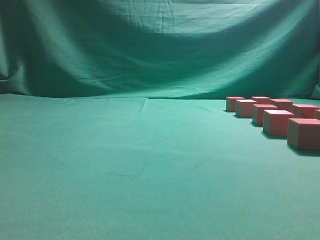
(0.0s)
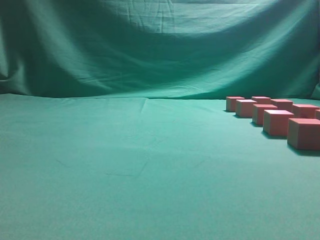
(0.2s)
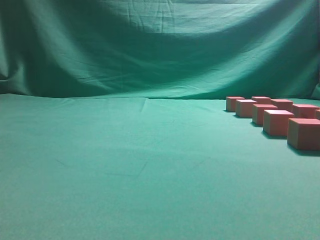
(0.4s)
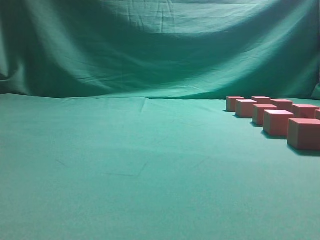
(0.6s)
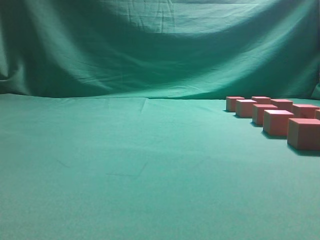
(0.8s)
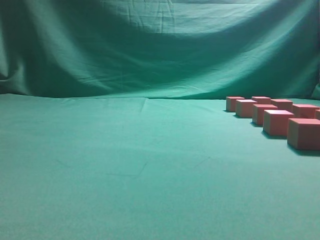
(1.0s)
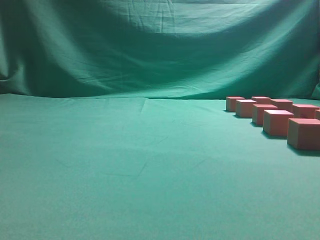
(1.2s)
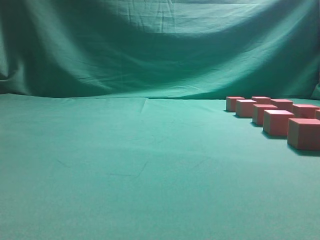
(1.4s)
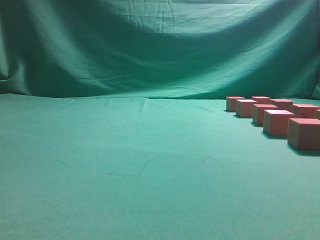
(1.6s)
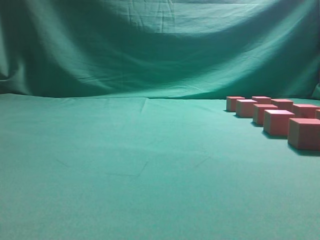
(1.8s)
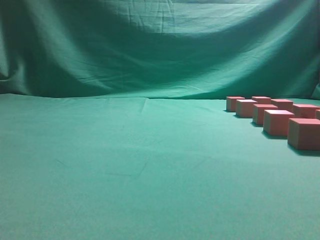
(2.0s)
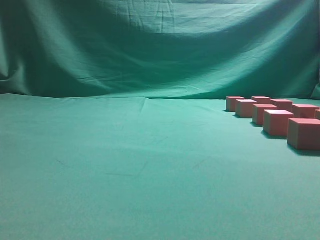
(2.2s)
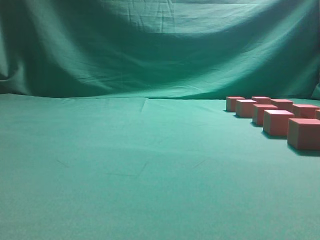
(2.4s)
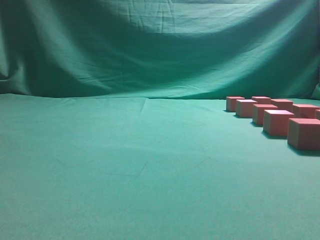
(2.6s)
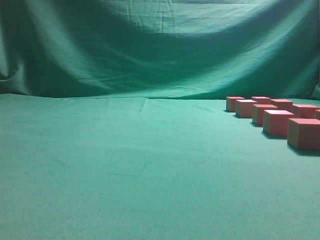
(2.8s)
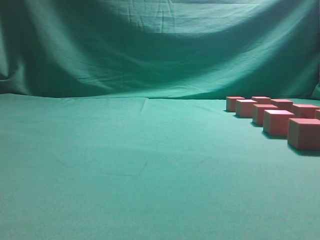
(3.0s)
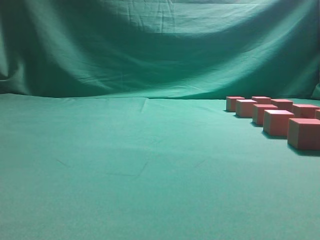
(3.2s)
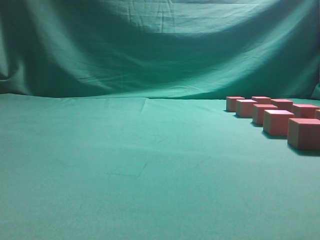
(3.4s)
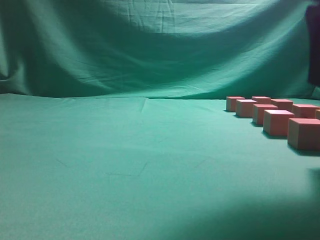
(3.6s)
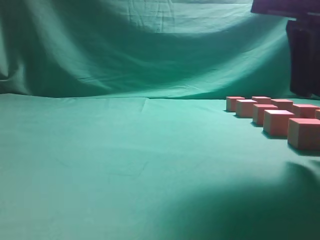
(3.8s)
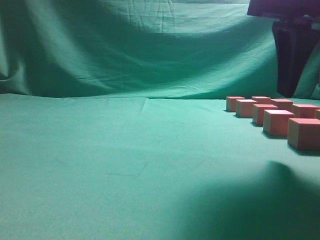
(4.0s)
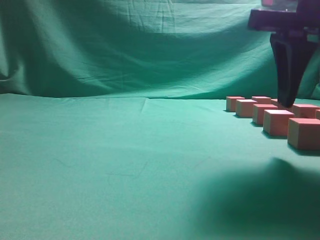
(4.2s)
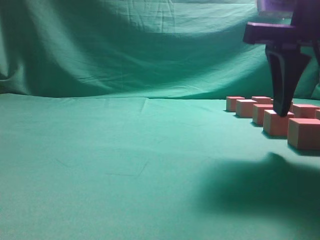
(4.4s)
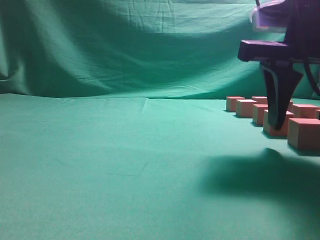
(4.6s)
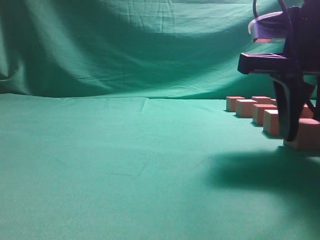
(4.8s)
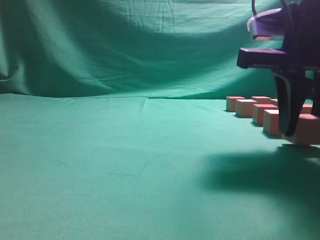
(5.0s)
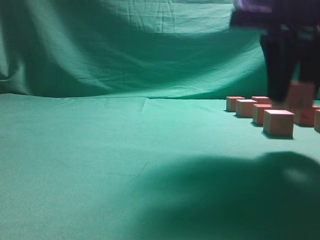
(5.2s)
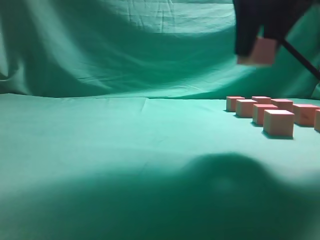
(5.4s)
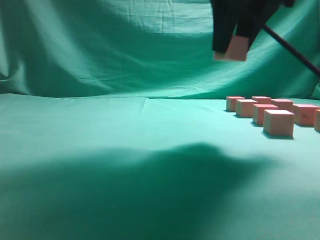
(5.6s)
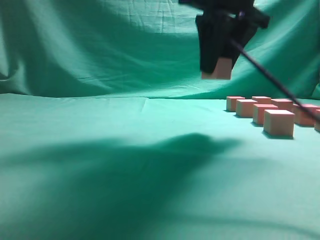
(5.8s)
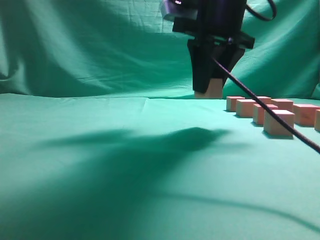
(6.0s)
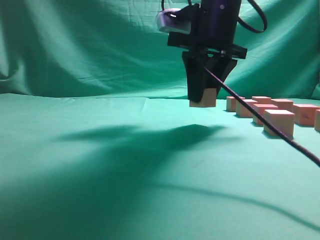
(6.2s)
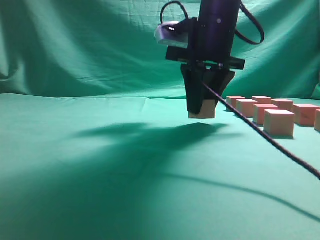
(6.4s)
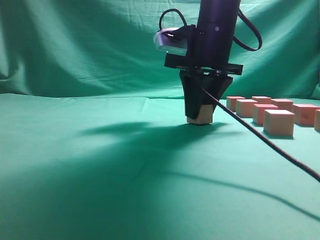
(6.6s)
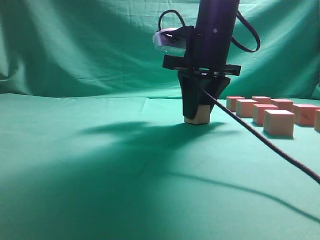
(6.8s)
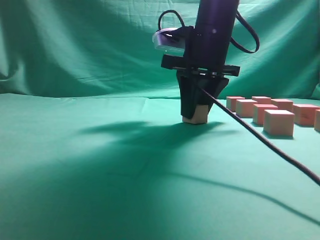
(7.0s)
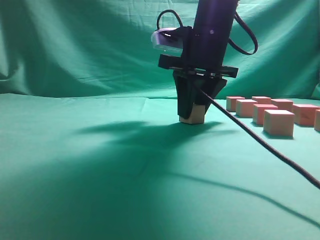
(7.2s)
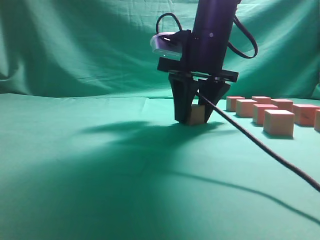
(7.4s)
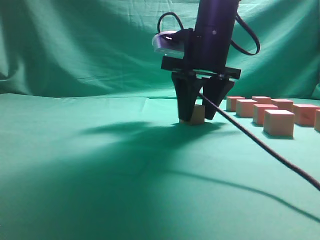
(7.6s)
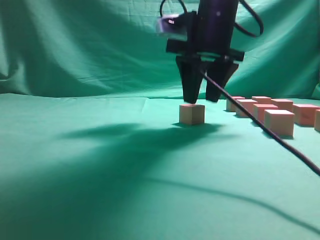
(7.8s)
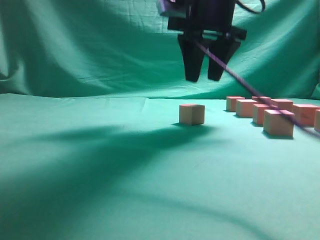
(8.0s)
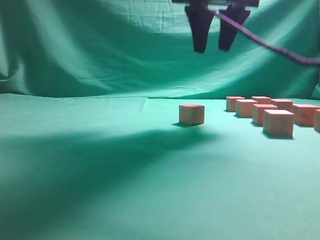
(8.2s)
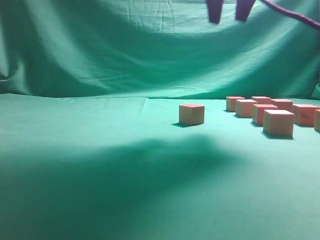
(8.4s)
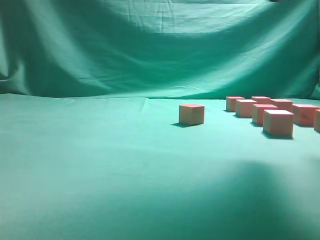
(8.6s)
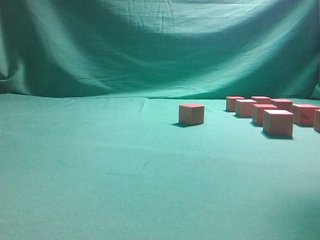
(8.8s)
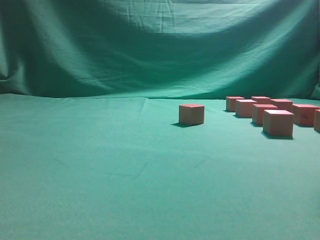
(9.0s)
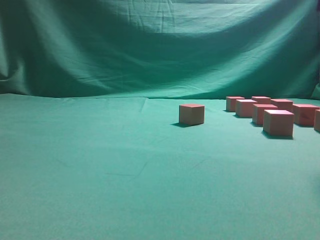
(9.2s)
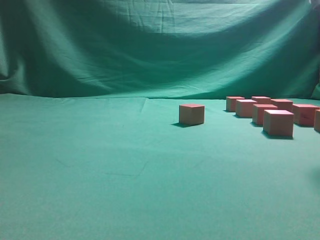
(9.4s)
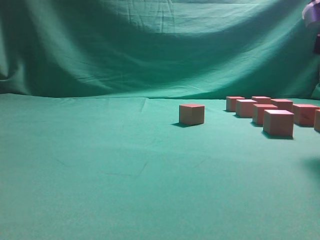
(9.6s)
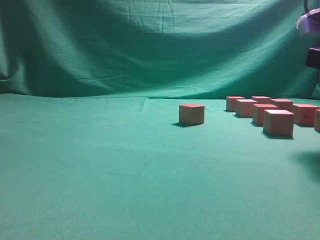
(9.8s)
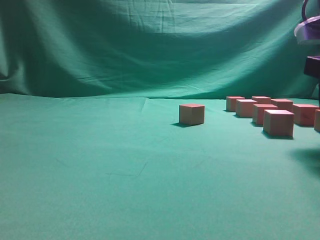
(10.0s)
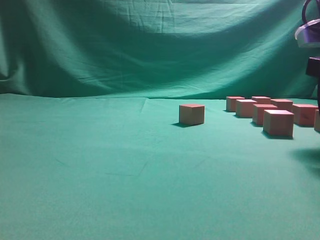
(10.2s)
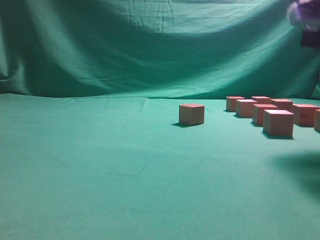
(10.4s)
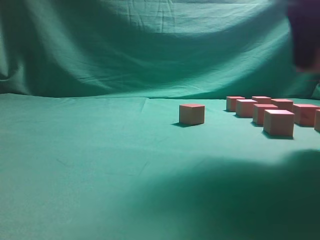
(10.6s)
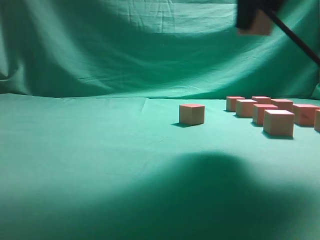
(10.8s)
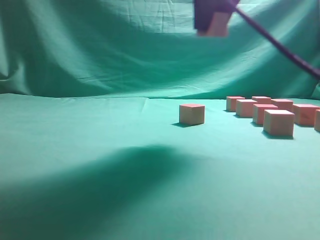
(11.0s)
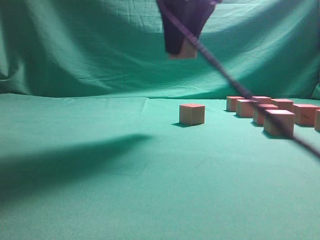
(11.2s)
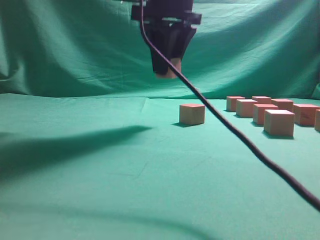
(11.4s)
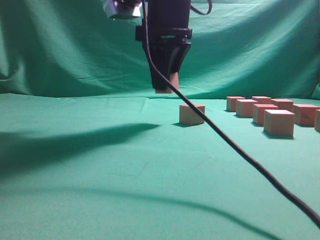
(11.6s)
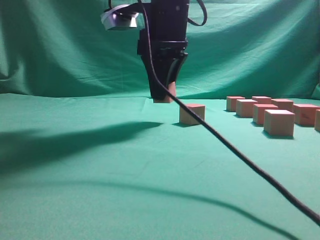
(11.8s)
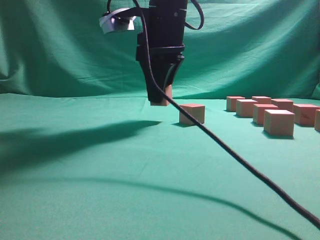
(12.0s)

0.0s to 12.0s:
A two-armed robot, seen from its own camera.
Task of the whole recording: pick up the multiple cubes in two columns one by one and place them in another position on the table.
Step, 0.0s to 5.4s: Pick up the block on the table.
Step, 5.6s to 8.0s: Place the block at the correct position to assemble the letter S.
Step, 8.4s to 10.4s: Pick up the block on the table.
3.0s to 4.4s: The right gripper shifts some 15 cm forward, to the left and downward, and opens up.
4.4s to 6.0s: The right gripper moves forward and to the left, approximately 15 cm.
6.0s to 7.6s: The right gripper goes roughly 5 cm downward.
7.6s to 9.0s: The right gripper moves to the right, backward and upward, about 25 cm.
9.0s to 10.4s: The right gripper shifts approximately 5 cm downward.
10.4s to 12.0s: The right gripper is displaced to the left and forward by approximately 25 cm.

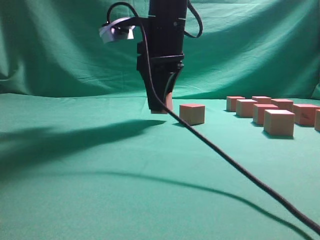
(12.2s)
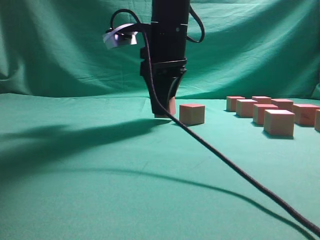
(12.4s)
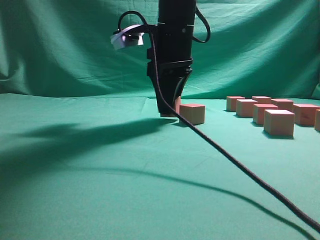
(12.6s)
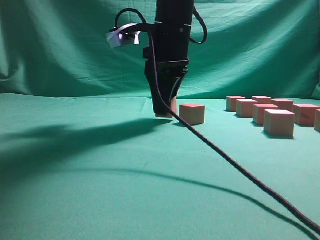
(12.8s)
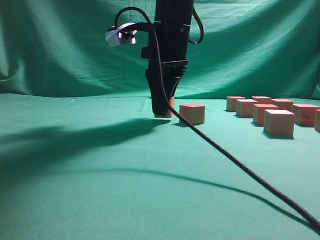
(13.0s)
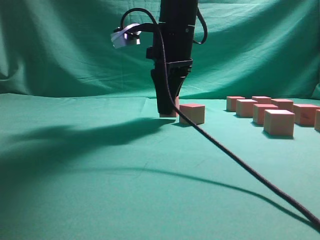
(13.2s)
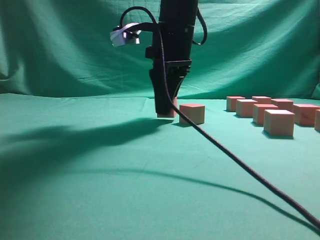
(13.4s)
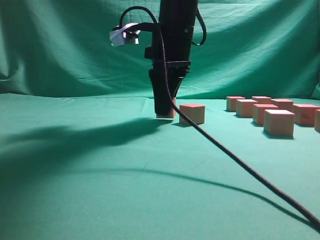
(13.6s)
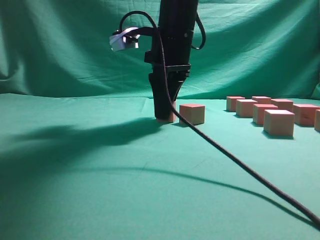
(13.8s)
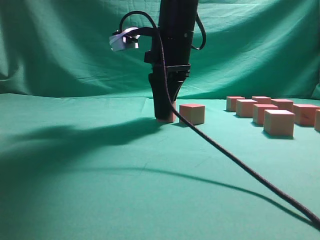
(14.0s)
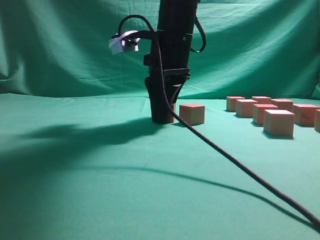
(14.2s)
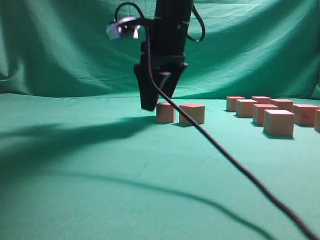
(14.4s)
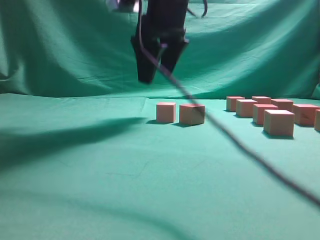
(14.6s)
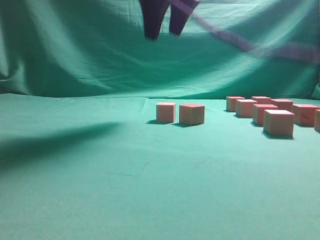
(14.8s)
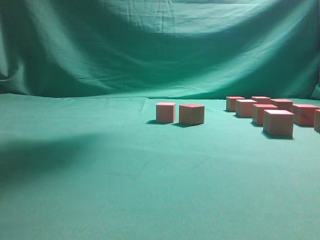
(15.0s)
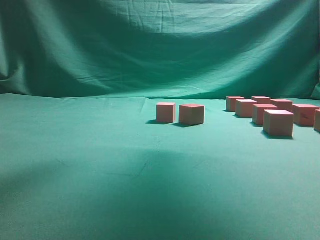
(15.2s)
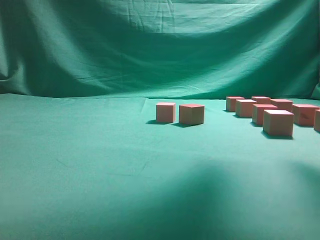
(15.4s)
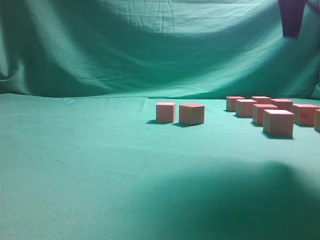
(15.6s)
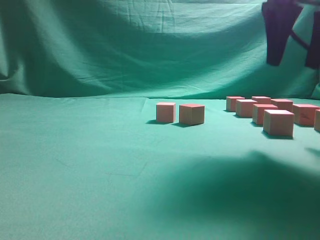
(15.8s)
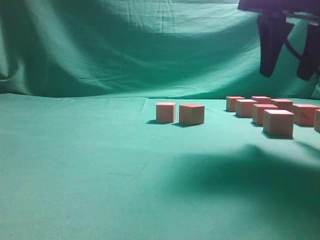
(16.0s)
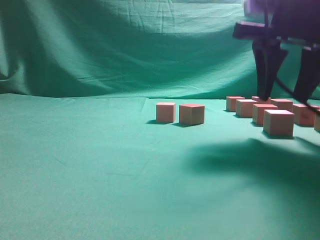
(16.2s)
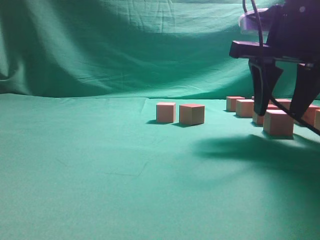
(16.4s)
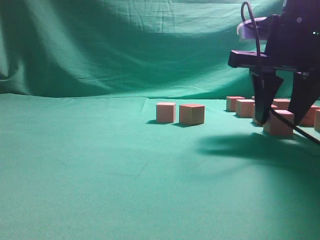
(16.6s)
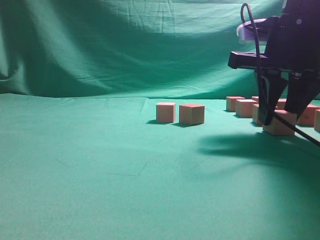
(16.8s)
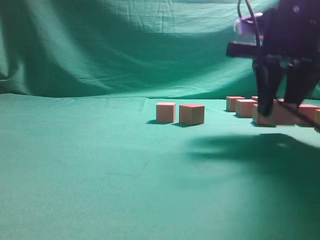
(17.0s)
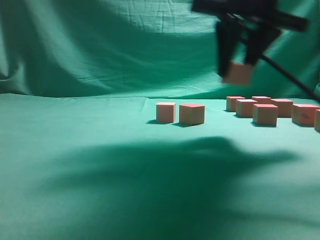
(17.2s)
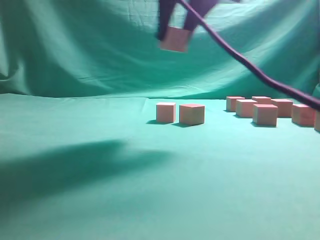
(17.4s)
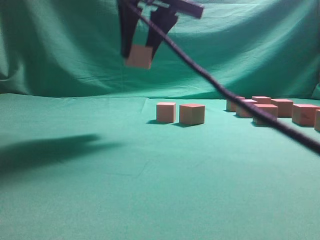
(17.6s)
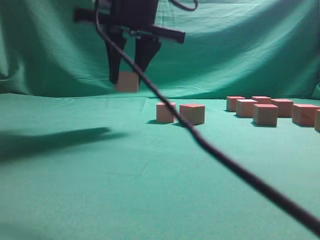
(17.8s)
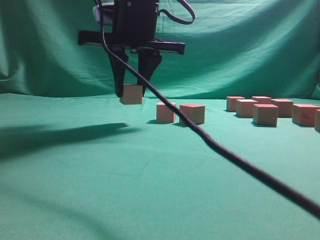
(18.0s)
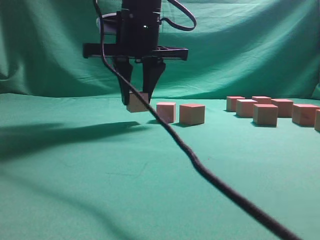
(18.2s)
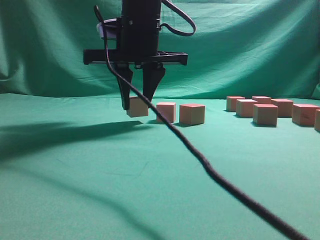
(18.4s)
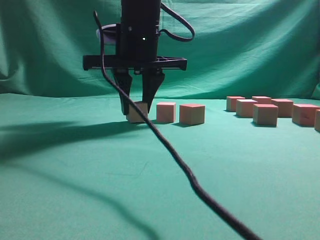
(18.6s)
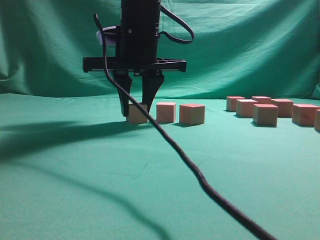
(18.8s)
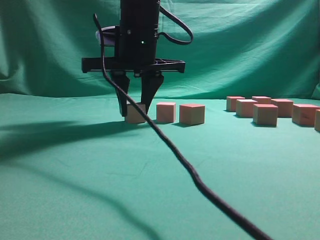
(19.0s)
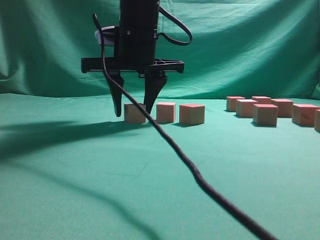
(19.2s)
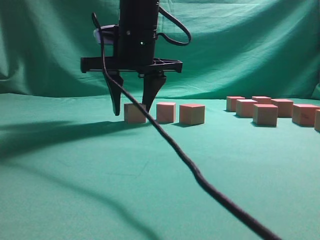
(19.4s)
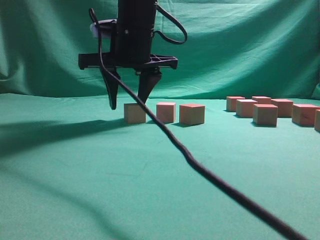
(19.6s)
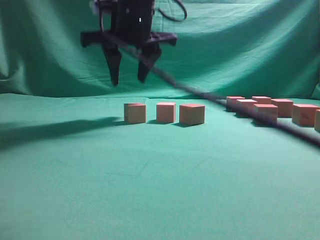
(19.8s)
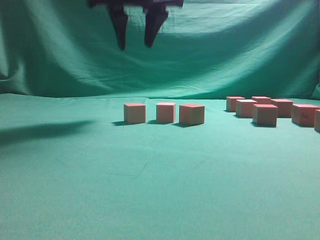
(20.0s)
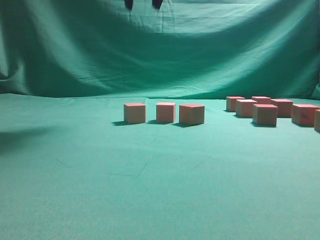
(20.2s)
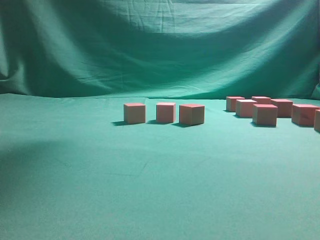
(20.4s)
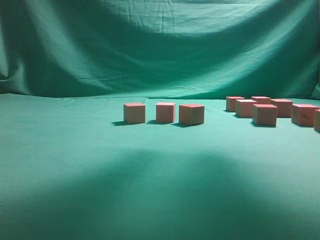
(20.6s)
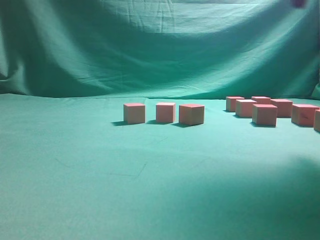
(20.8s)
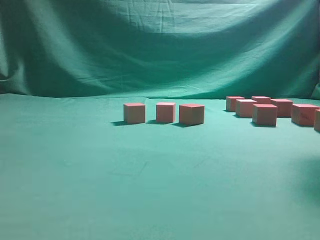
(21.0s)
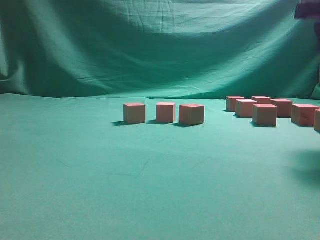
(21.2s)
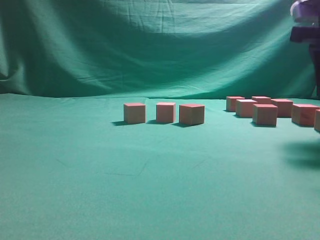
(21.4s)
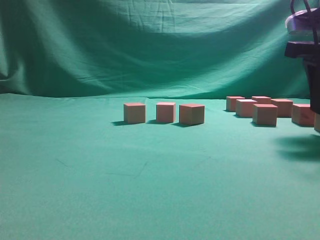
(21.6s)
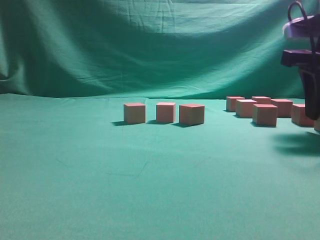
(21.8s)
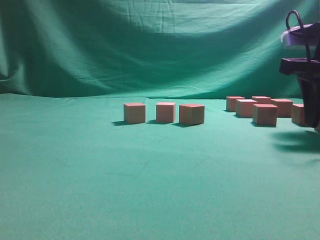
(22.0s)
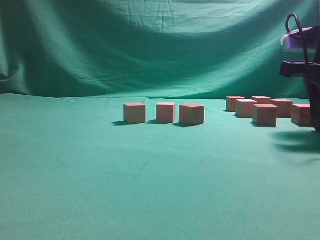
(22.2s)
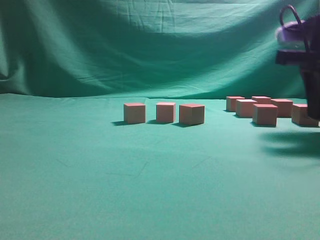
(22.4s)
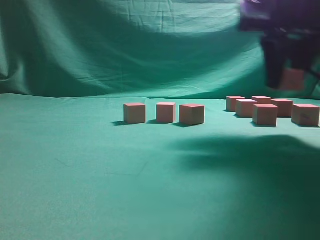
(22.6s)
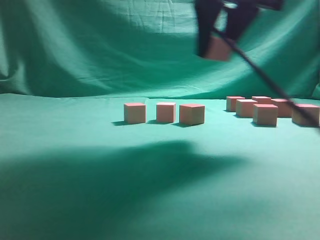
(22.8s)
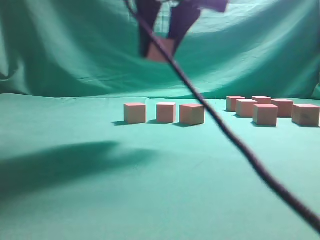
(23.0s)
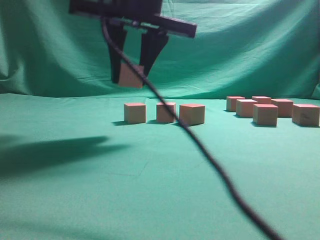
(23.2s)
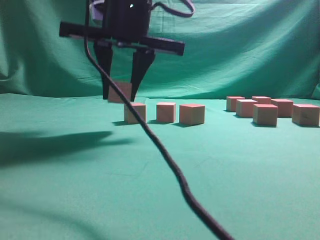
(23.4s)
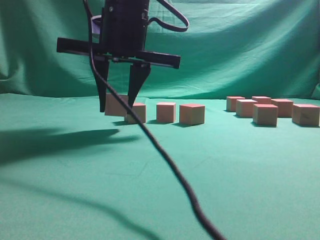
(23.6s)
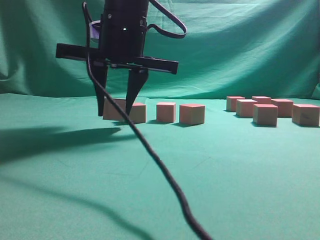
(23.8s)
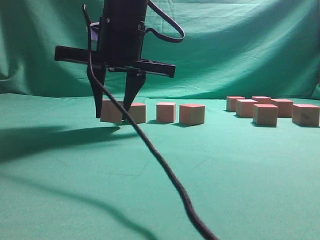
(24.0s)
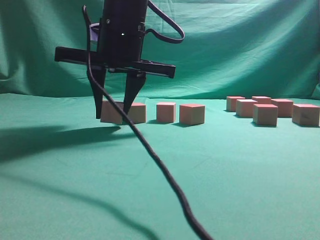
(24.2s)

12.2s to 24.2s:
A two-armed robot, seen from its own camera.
Task of the whole recording: pick up the multiple cubes in two columns one by one and place them in another position on the table.
Step, 12.2s to 14.8s: Place the block at the correct position to assemble the letter S.
Step, 15.0s to 17.4s: Pick up the block on the table.
Step, 17.6s to 19.8s: Place the block at the correct position to assemble the letter S.
Step, 20.2s to 22.4s: Pick up the block on the table.
12.2s to 13.8s: The grippers move only a little.
13.8s to 15.2s: The right gripper travels upward and to the right by approximately 25 cm, and opens its fingers.
15.2s to 16.6s: The right gripper shifts roughly 20 cm downward.
16.6s to 18.2s: The right gripper goes about 20 cm to the left.
18.2s to 19.8s: The grippers stay close to where they were, moving slightly.
19.8s to 21.2s: The right gripper shifts roughly 30 cm to the right.
21.2s to 22.6s: The right gripper goes some 5 cm to the left.
22.6s to 24.2s: The right gripper is displaced to the left by approximately 25 cm.
